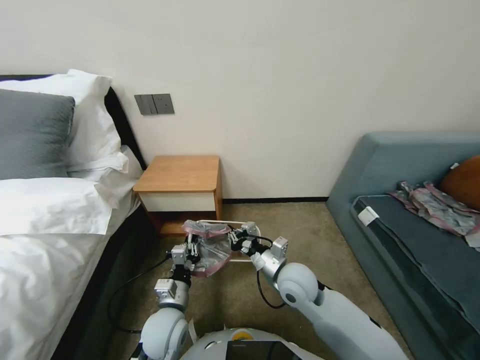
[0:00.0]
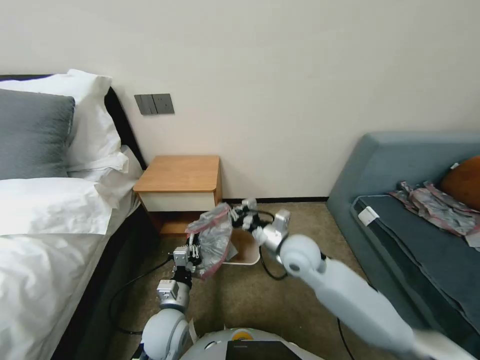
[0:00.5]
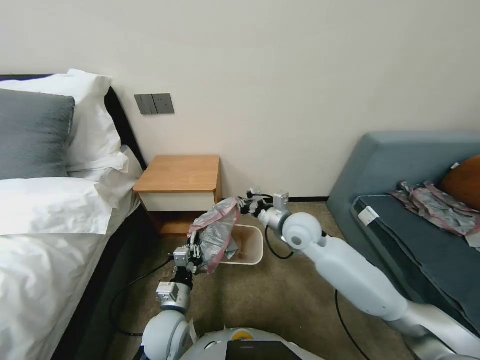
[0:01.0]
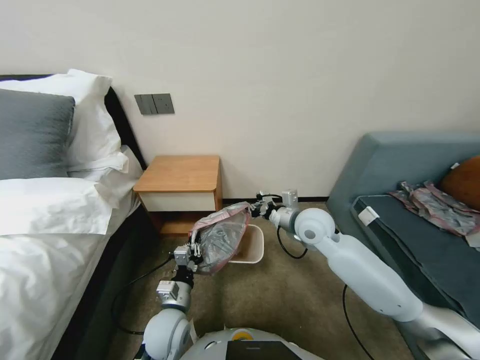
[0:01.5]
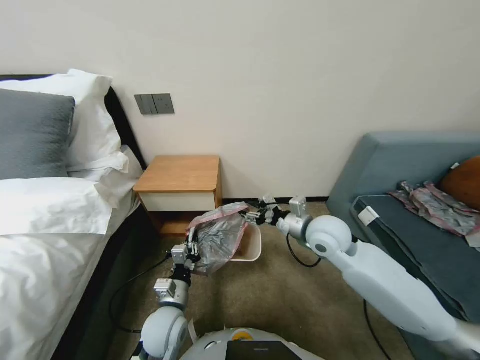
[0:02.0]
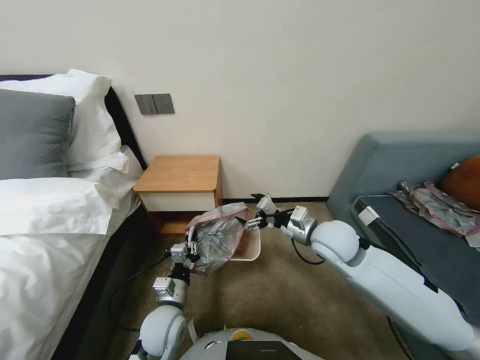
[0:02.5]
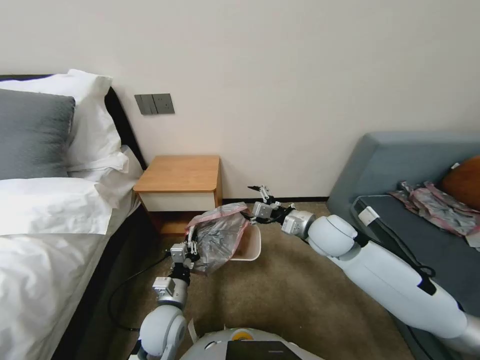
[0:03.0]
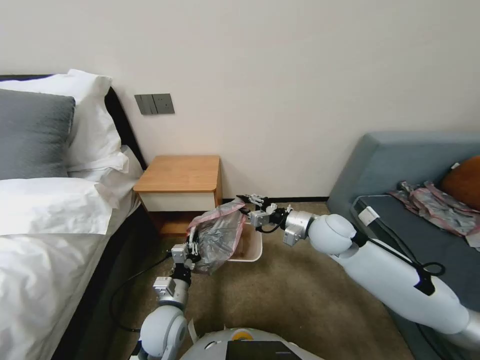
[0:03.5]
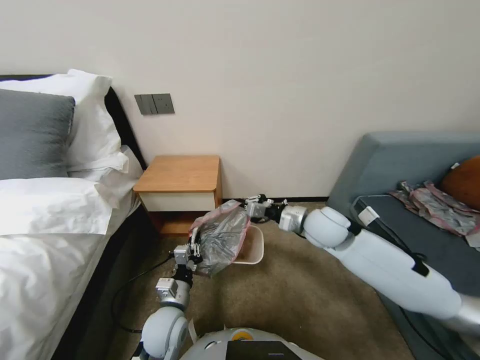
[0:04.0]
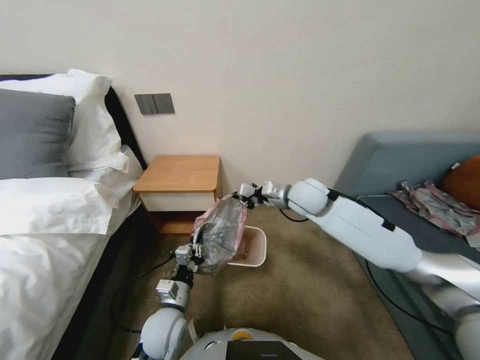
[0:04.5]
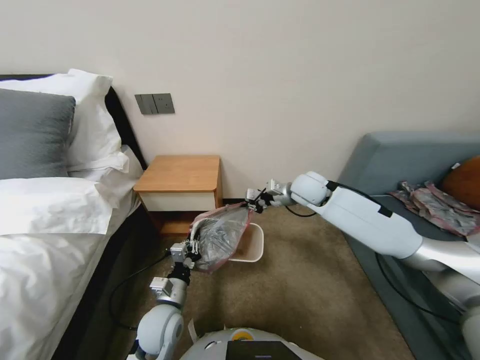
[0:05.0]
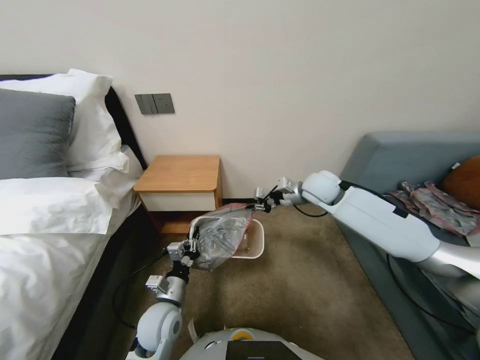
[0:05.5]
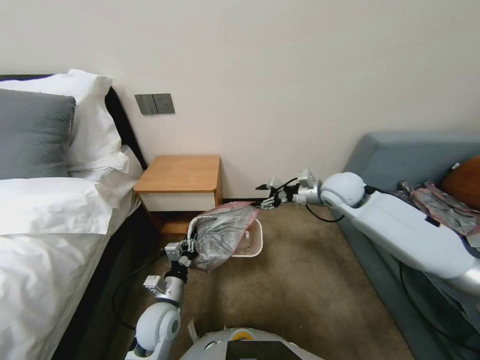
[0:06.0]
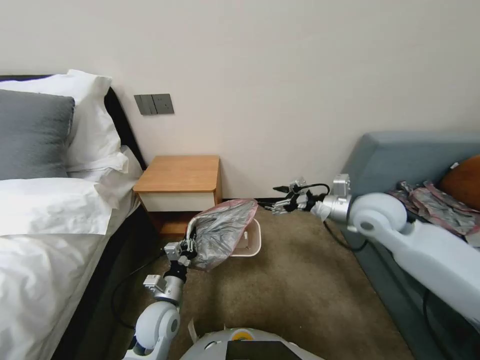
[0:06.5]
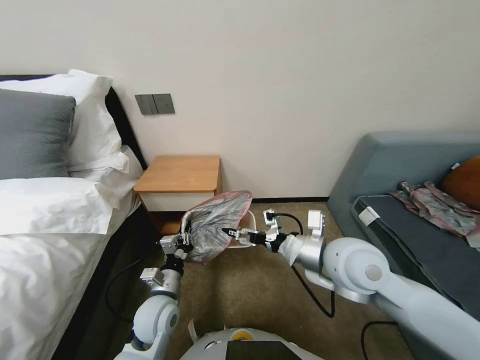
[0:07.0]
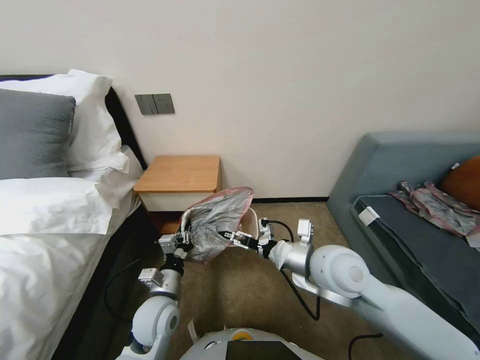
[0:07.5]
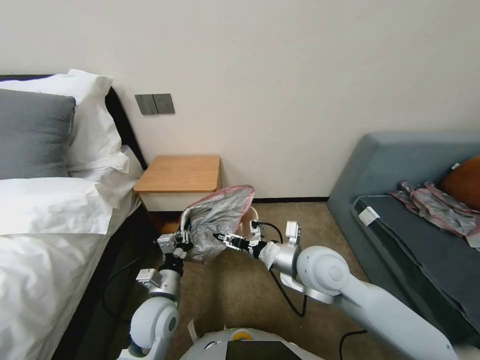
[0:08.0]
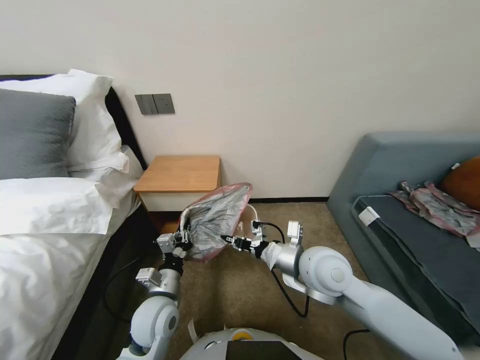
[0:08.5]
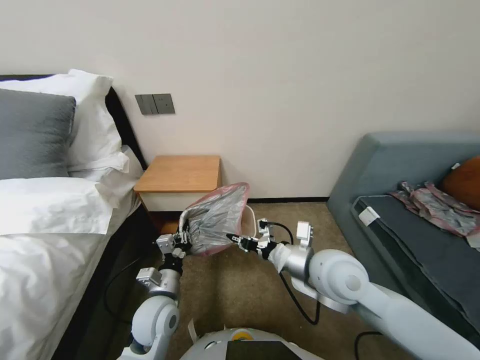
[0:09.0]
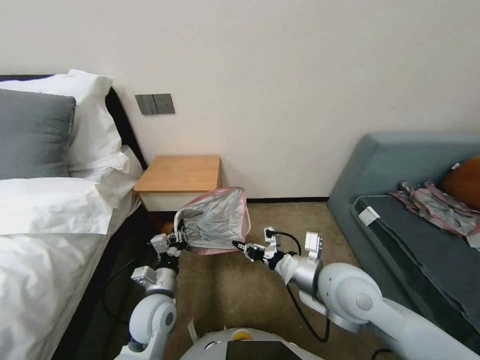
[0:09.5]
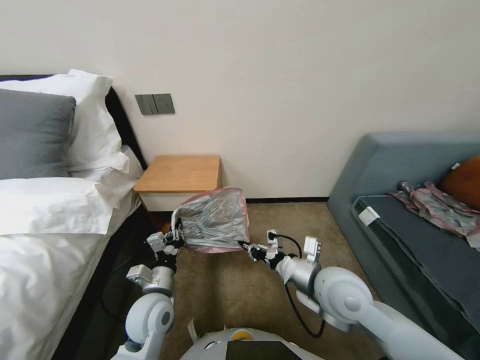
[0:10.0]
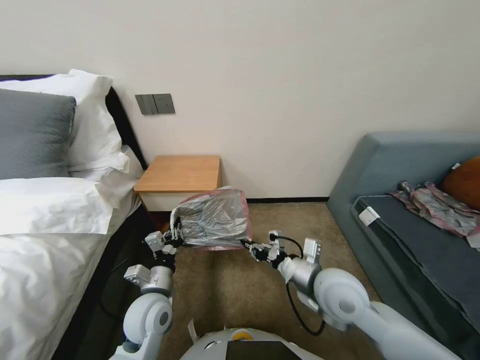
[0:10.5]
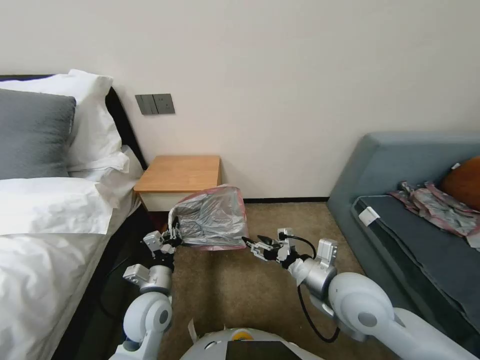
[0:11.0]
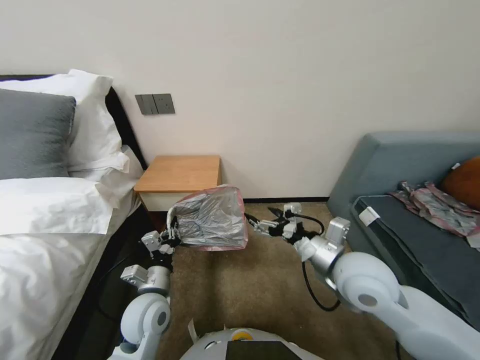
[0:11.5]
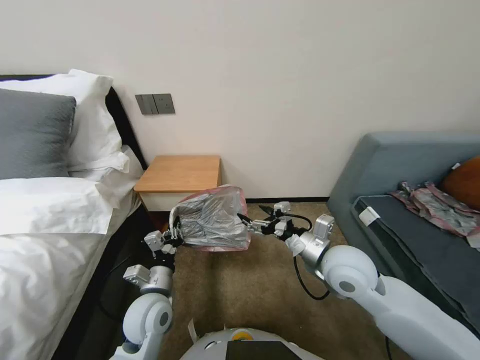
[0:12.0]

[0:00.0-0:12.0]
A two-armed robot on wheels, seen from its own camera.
Task of the whole recording: Pick up the garbage bag from the table and place it over the trash can.
0:00.0 to 0:02.0: The right gripper goes roughly 15 cm upward, forward and to the right, and opens up.
0:02.0 to 0:04.0: The right gripper closes its fingers.
0:04.0 to 0:06.0: The right gripper is displaced forward and to the right by roughly 10 cm, and opens its fingers.
0:06.0 to 0:08.0: The right gripper travels backward and to the left by approximately 20 cm.
0:08.0 to 0:10.0: The right gripper shifts by about 5 cm, and closes up.
0:10.0 to 0:12.0: The right gripper changes place by approximately 5 cm, and opens its fingers.

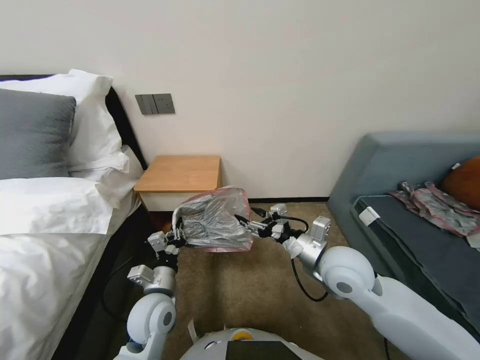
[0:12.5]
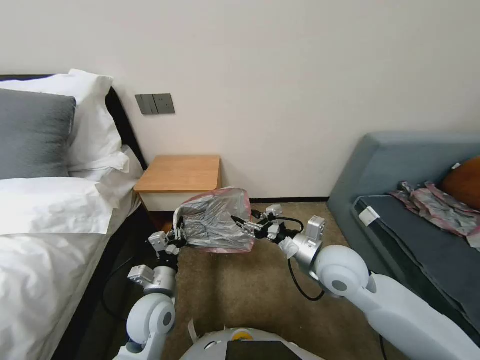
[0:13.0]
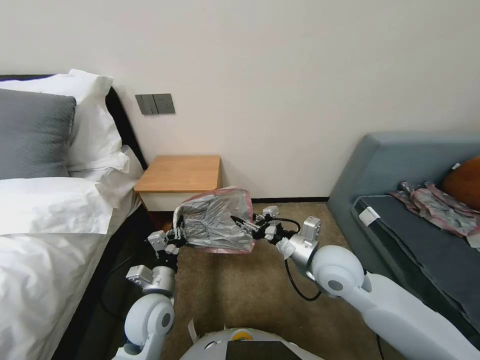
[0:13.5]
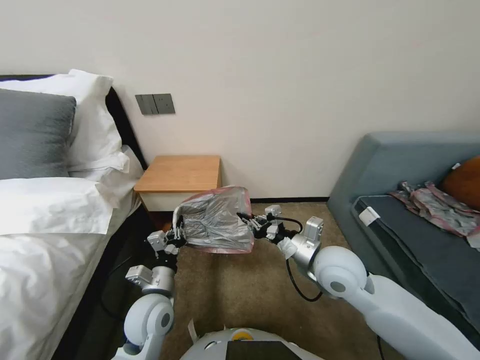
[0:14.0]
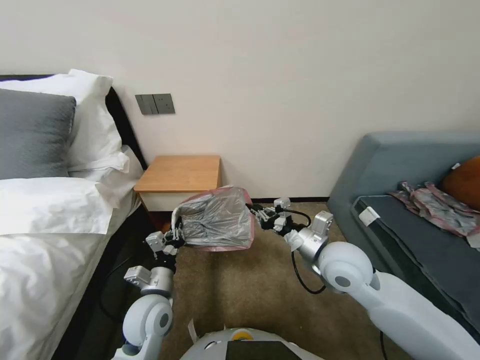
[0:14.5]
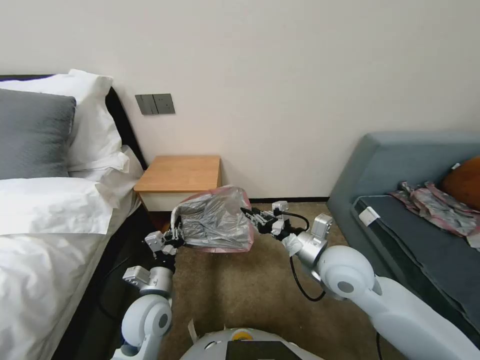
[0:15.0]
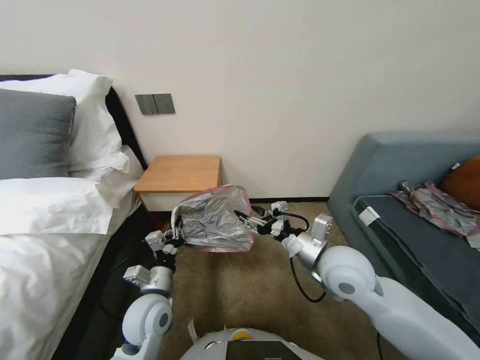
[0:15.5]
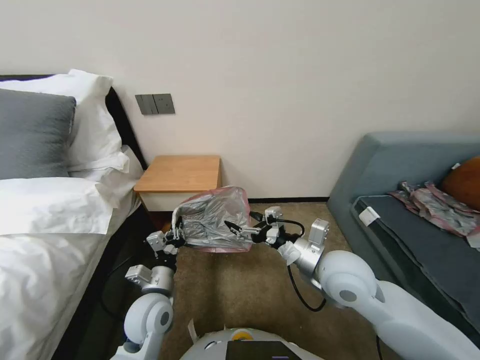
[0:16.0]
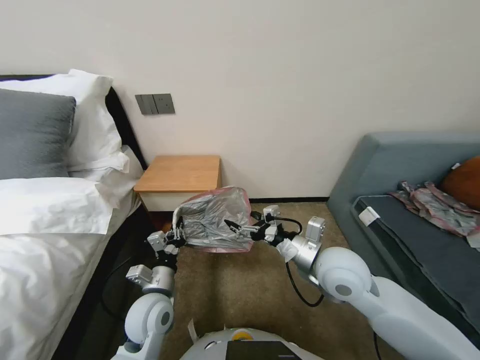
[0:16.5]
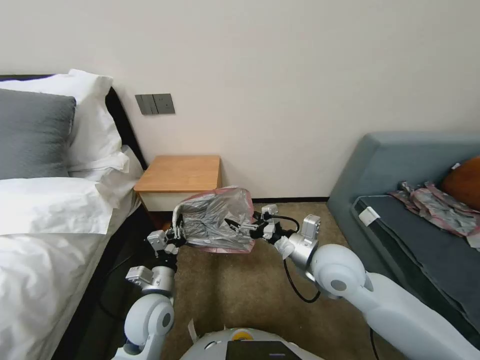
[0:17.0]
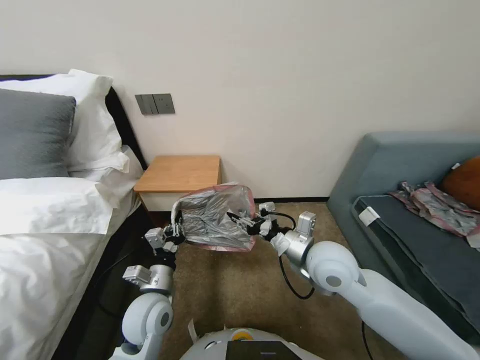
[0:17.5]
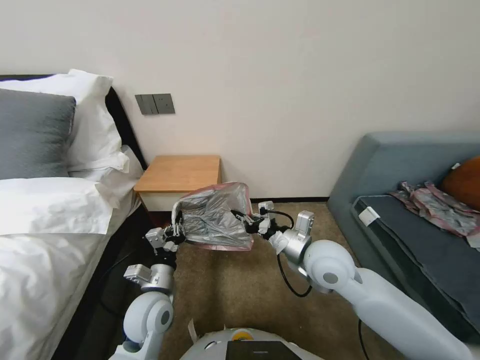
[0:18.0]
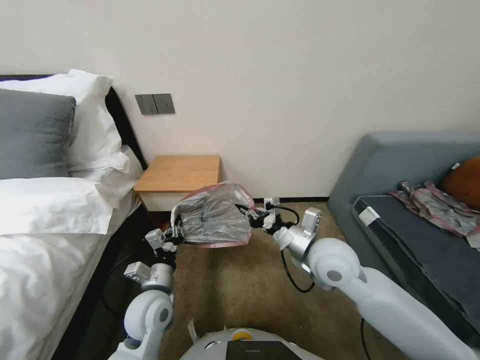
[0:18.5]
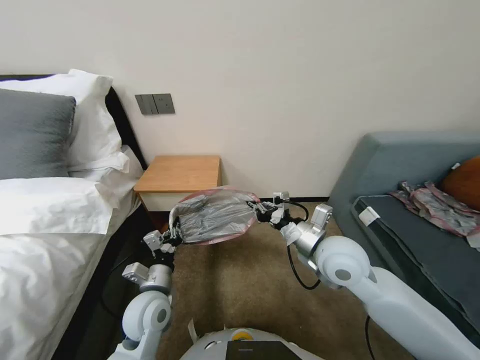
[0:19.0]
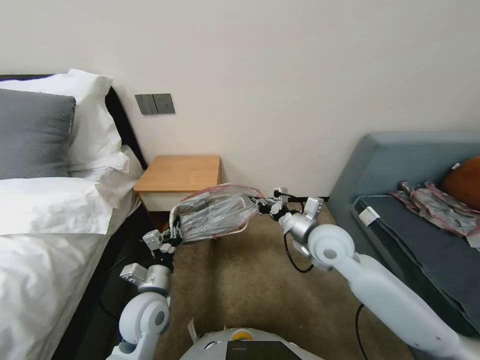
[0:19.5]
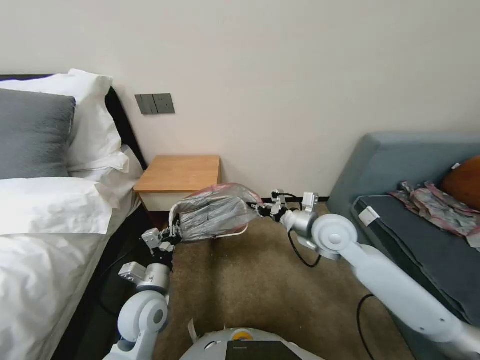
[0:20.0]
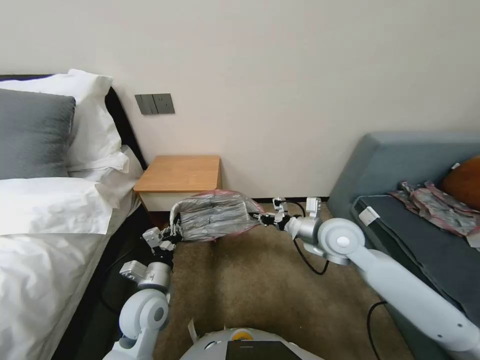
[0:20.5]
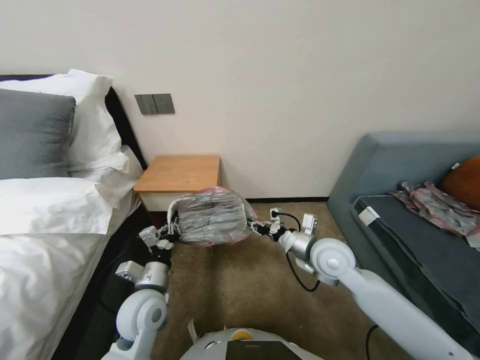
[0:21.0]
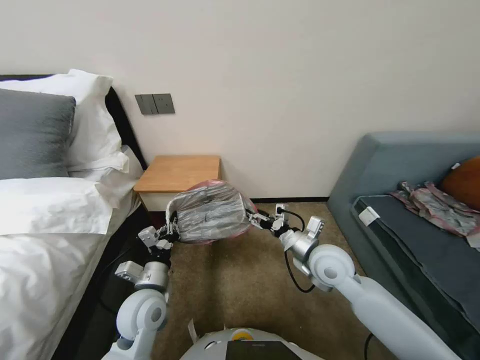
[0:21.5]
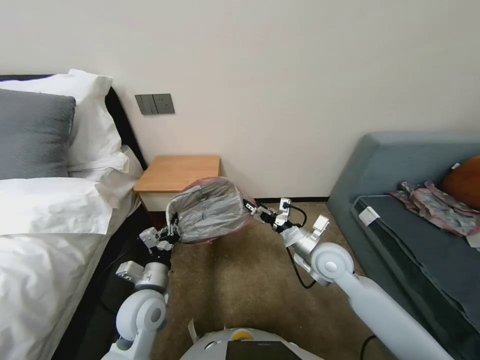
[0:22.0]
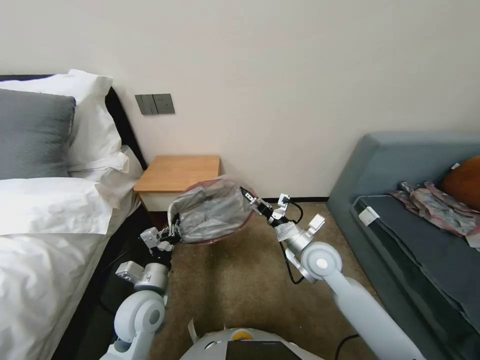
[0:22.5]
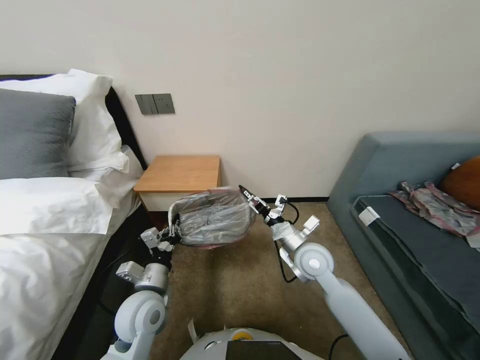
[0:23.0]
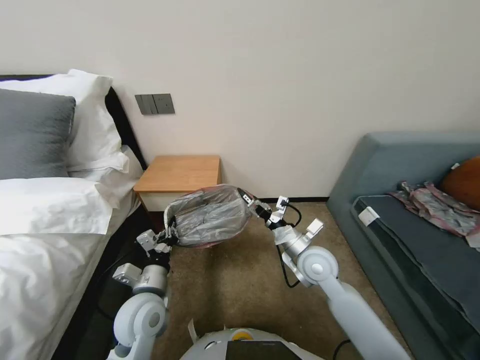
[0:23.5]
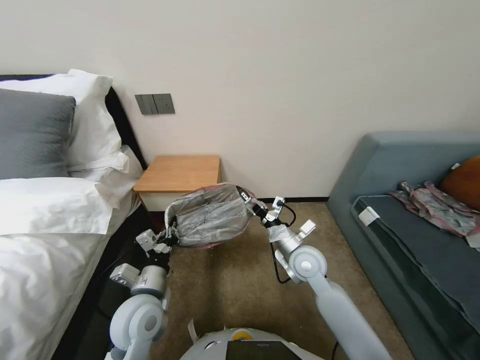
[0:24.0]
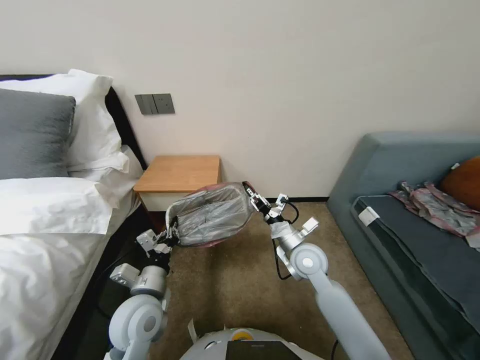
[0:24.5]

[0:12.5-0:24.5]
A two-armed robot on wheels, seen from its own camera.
Task of the whole recording: Pick up the garbage bag from the table and place it over the trash can.
0:12.5 to 0:14.5: The right gripper closes.
0:14.5 to 0:16.5: The right gripper opens up.
0:16.5 to 0:18.5: The right gripper closes up.
0:18.5 to 0:20.5: The right gripper goes about 10 cm forward and to the right.
0:20.5 to 0:22.5: The right gripper moves downward, roughly 5 cm, and opens up.
0:22.5 to 0:24.5: The right gripper closes up.

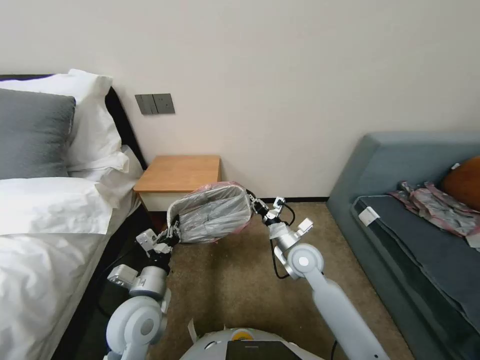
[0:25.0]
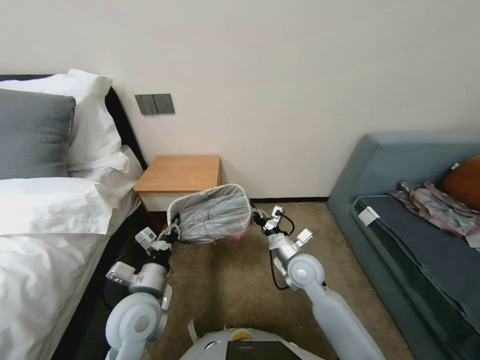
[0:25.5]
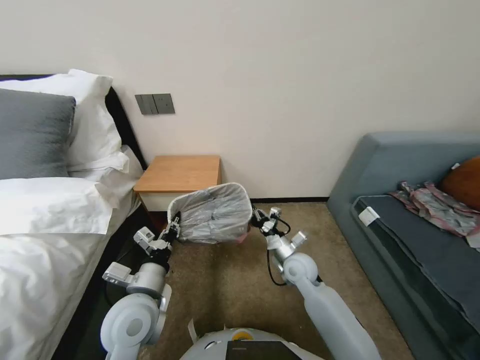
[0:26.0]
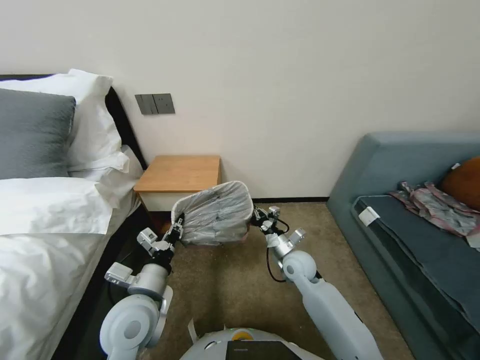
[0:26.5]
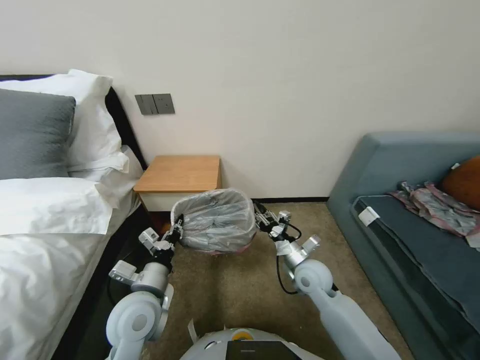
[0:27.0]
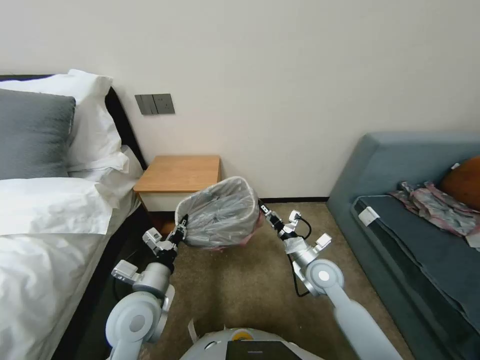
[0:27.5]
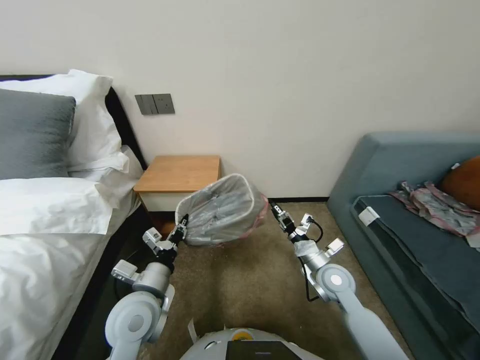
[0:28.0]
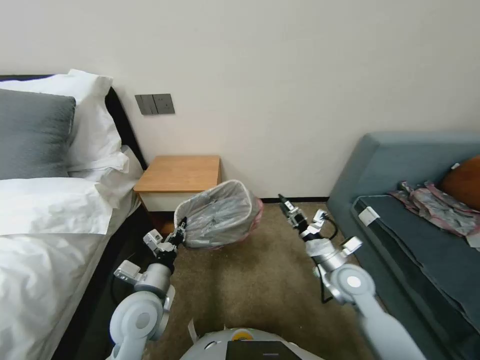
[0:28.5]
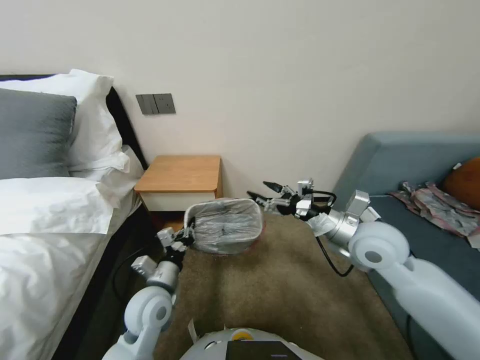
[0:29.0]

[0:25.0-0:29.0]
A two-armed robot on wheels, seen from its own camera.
Task of the whole recording: Pick up the garbage bag from the table and place it over the trash can.
0:25.0 to 0:27.0: The right gripper shifts by about 5 cm, and opens up.
0:27.0 to 0:29.0: The right gripper shifts roughly 20 cm upward and to the right, and opens.
